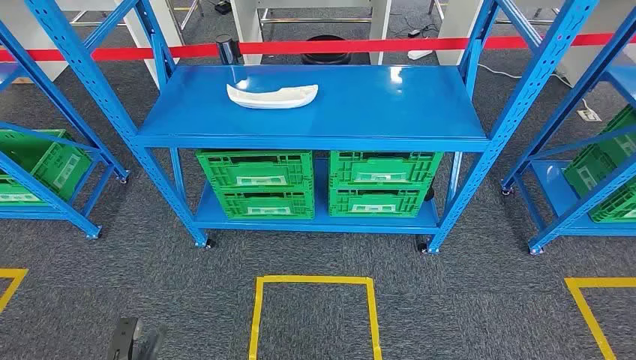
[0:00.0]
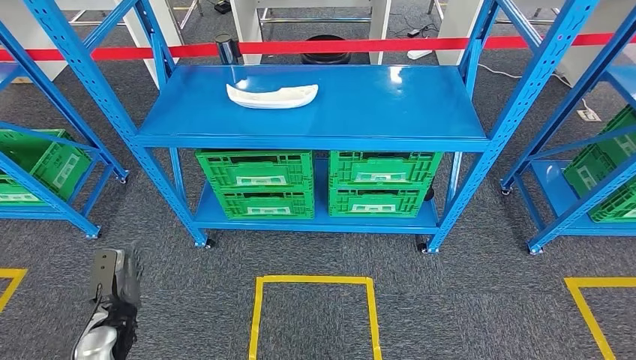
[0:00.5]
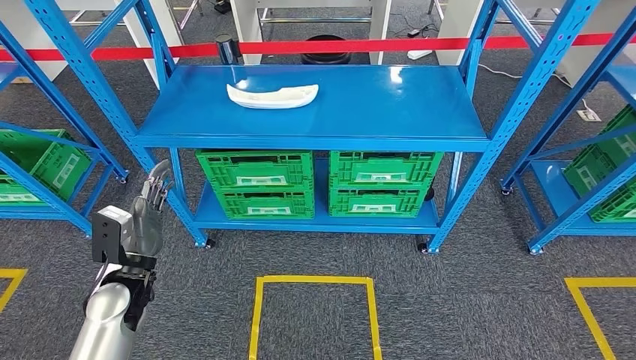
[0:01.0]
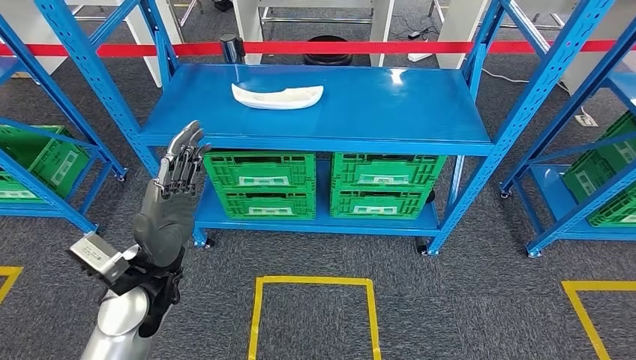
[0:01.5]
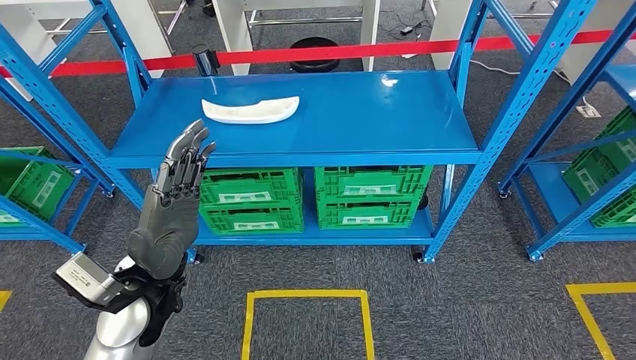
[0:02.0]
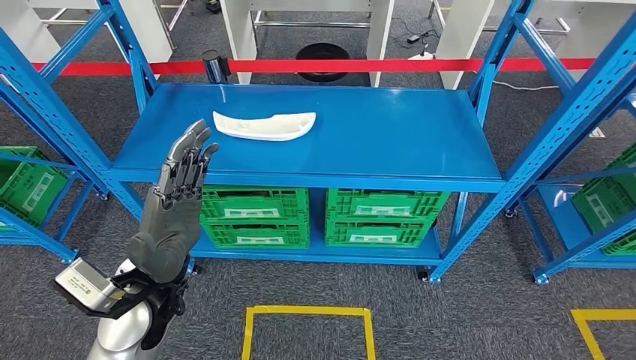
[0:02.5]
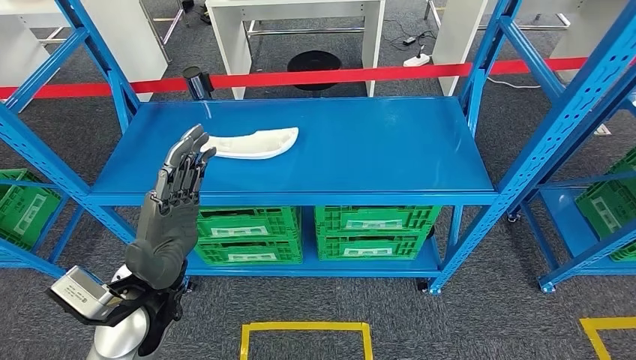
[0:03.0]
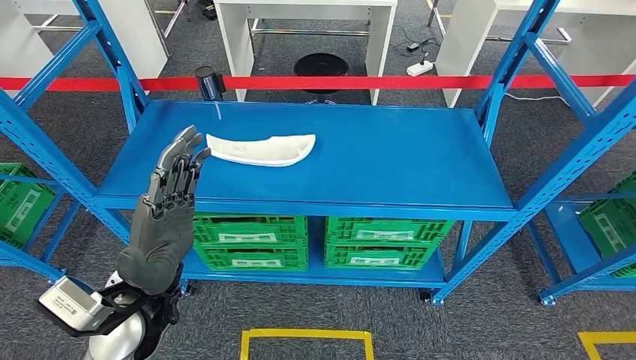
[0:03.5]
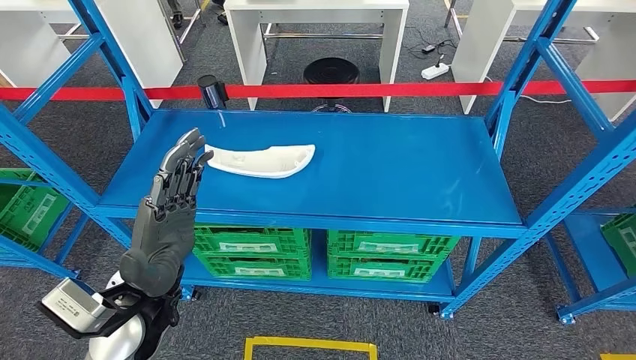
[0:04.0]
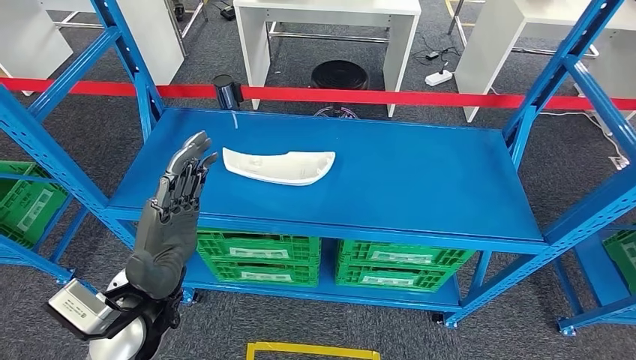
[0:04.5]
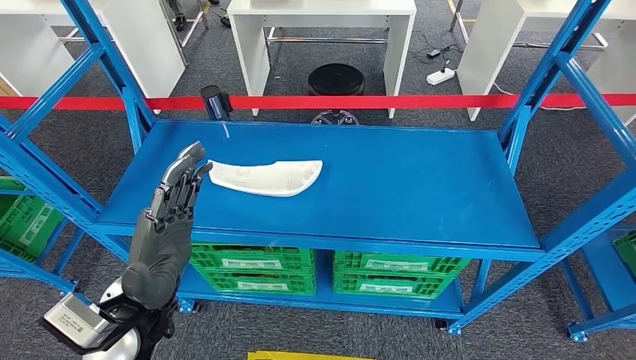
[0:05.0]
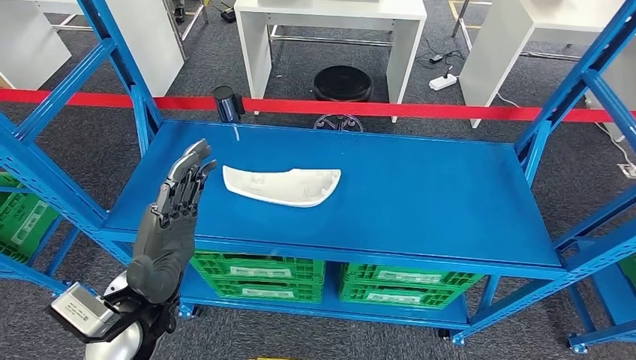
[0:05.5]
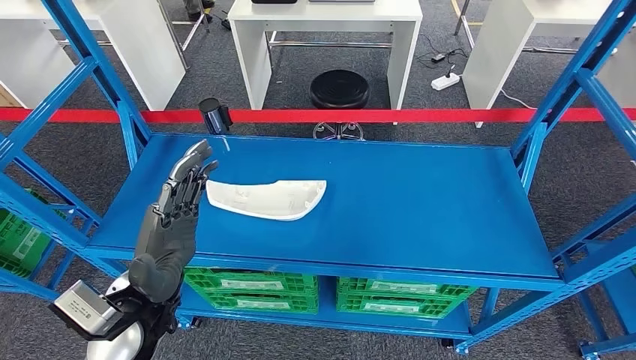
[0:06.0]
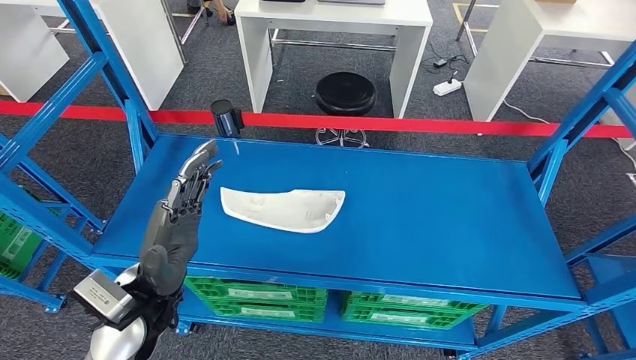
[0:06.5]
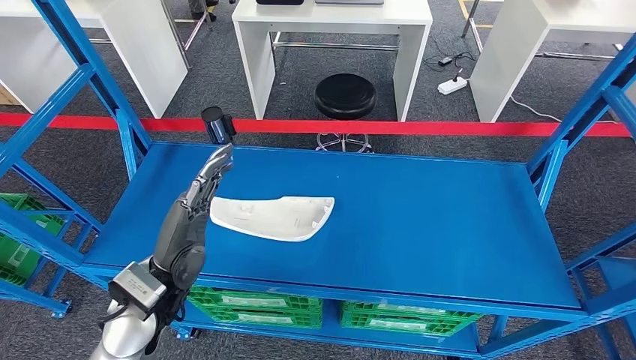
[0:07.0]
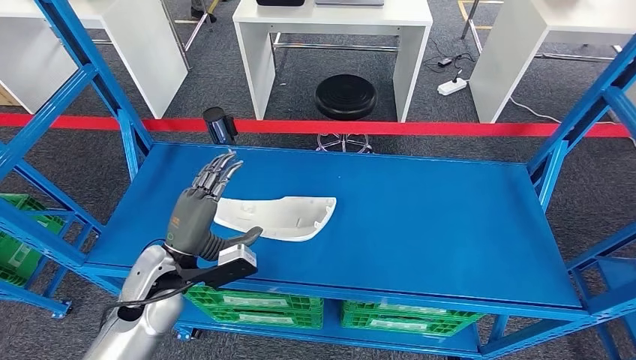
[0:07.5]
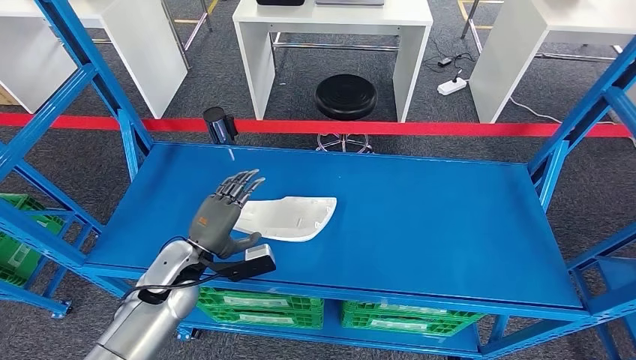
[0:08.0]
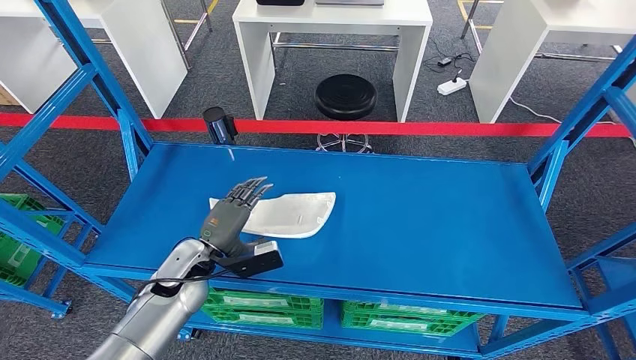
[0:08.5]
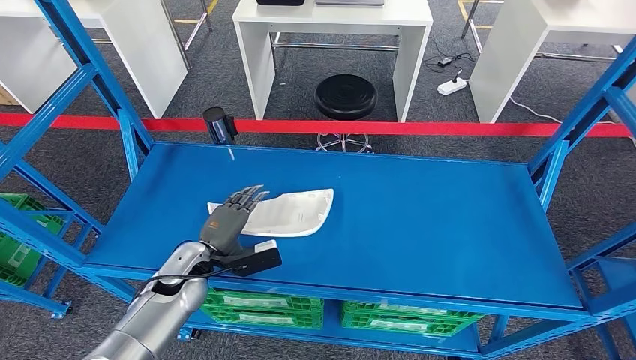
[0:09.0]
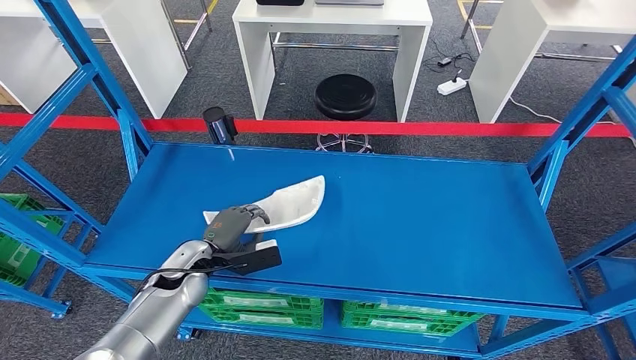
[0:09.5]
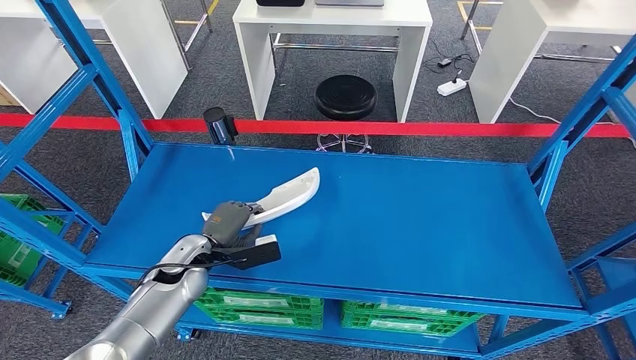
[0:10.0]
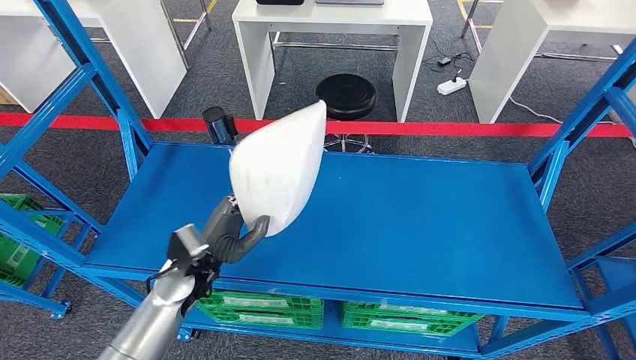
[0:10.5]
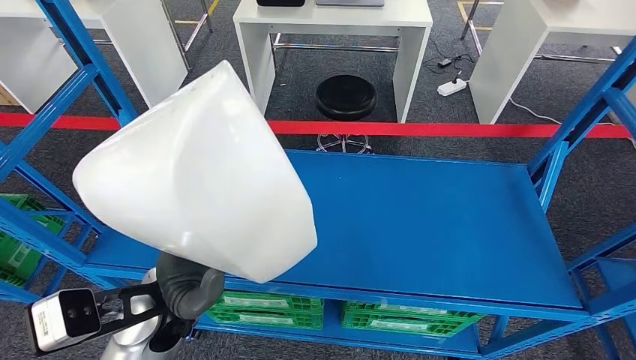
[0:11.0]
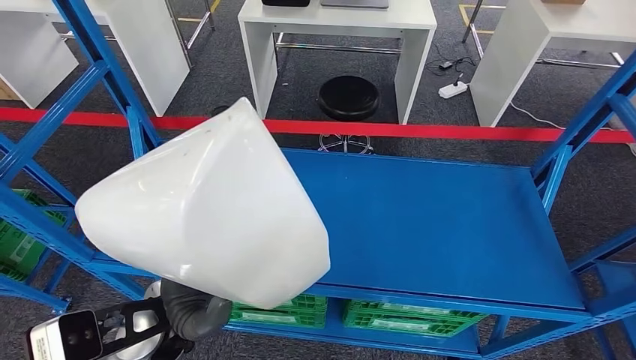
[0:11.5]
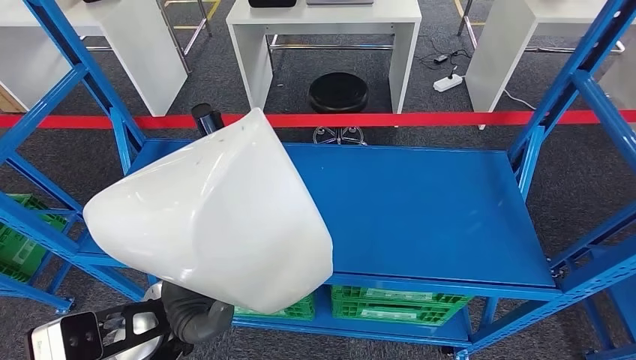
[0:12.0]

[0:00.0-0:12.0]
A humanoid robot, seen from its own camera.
Step, 0:00.0 to 0:11.0: Pick up the small component from the shelf.
0:08.0 to 0:10.0: The hands stay close to where they were, moving slightly.

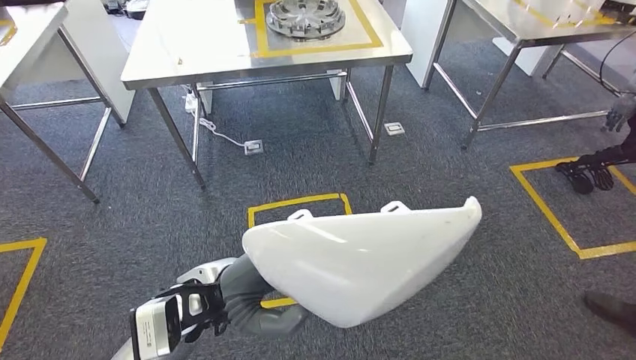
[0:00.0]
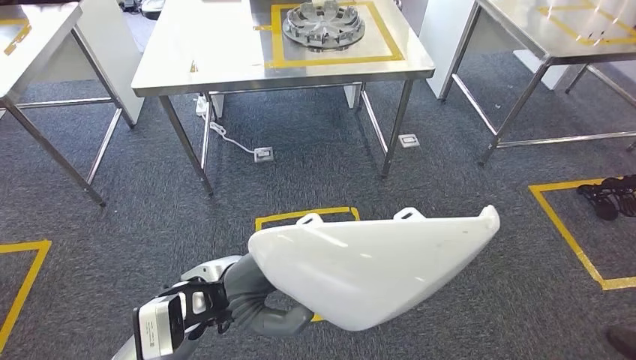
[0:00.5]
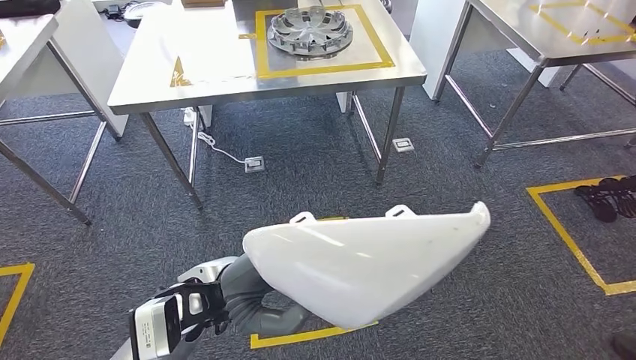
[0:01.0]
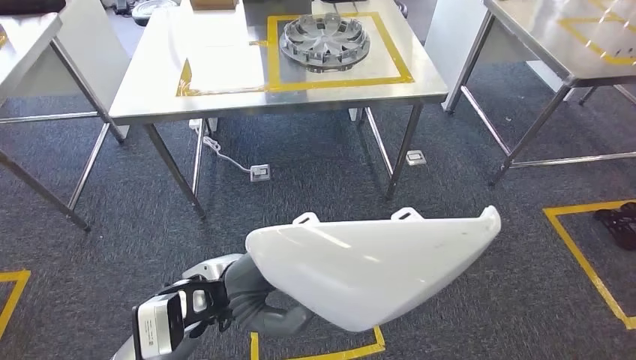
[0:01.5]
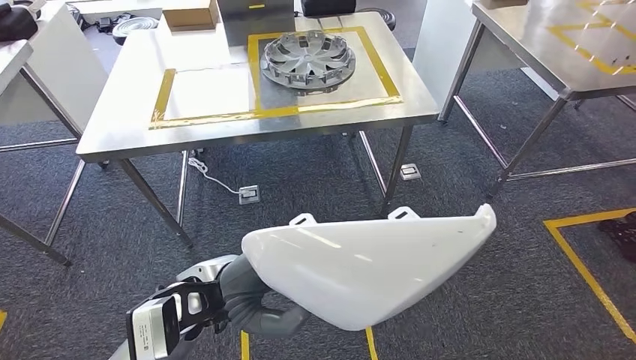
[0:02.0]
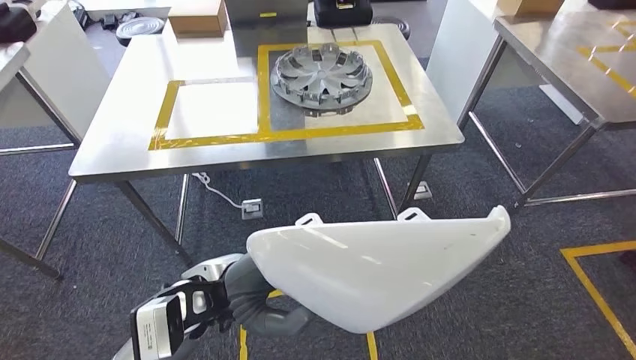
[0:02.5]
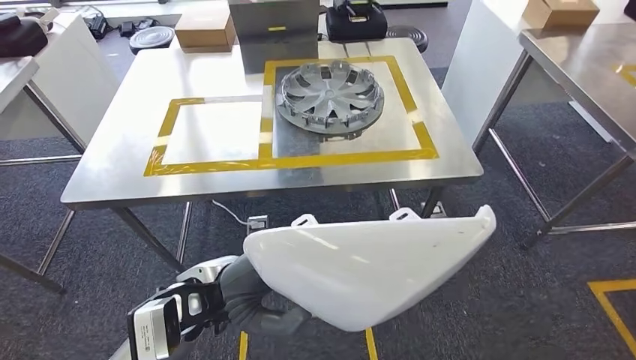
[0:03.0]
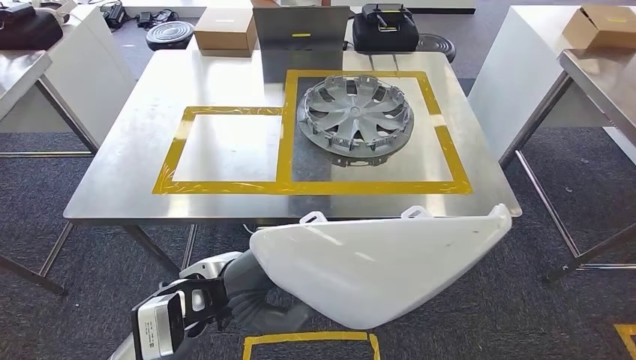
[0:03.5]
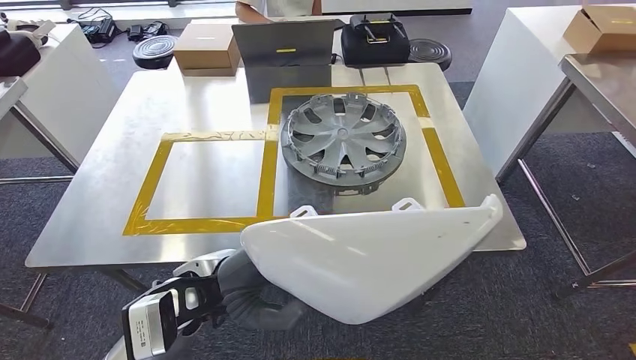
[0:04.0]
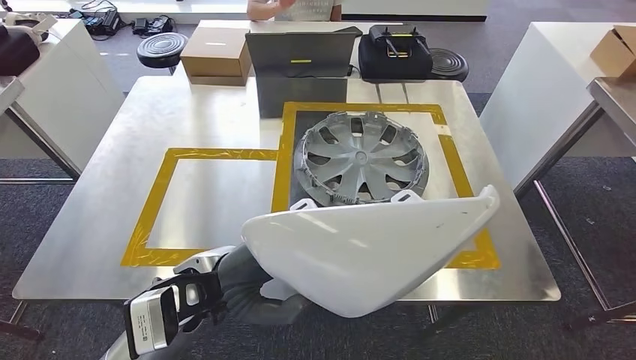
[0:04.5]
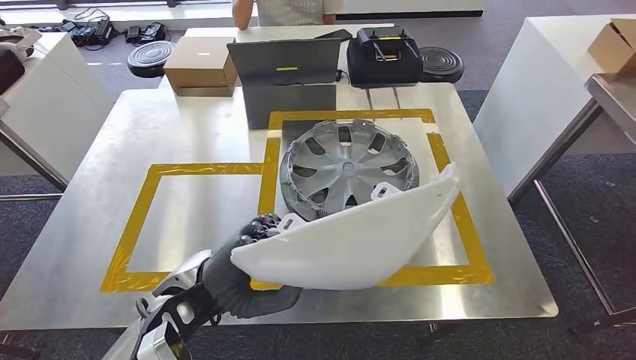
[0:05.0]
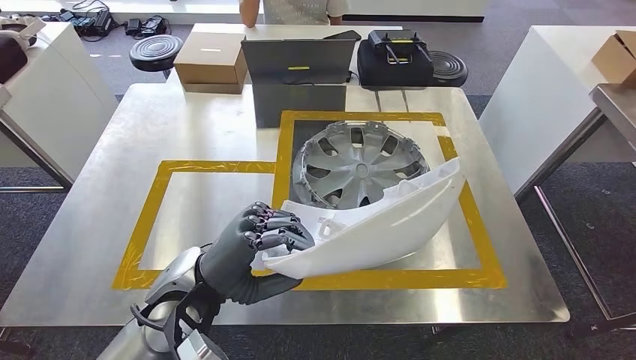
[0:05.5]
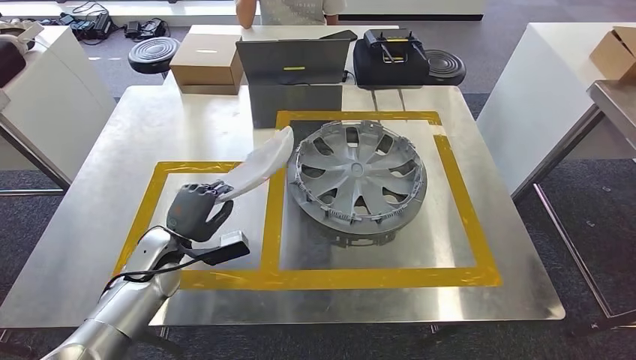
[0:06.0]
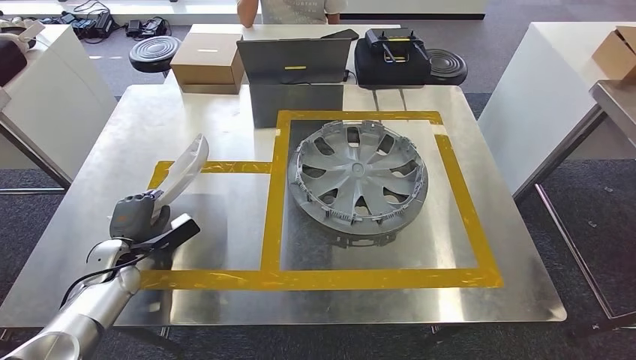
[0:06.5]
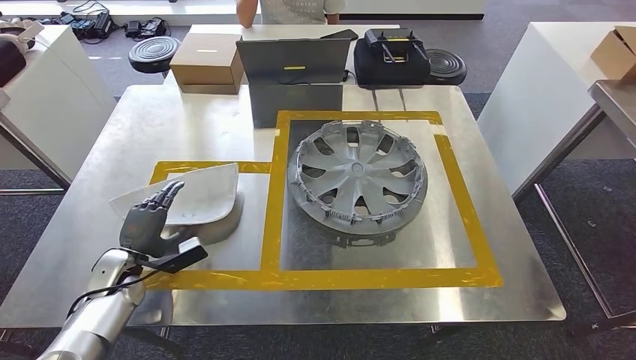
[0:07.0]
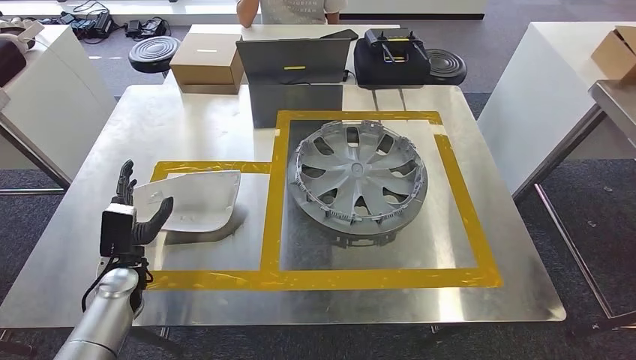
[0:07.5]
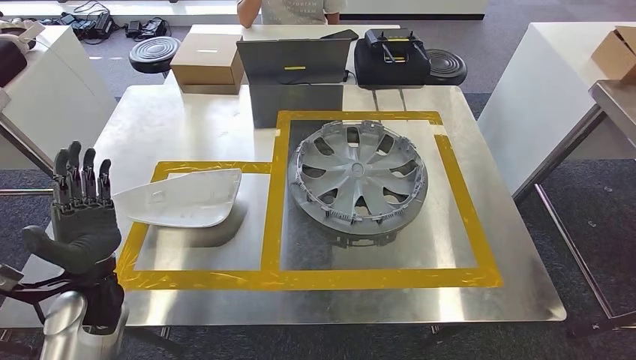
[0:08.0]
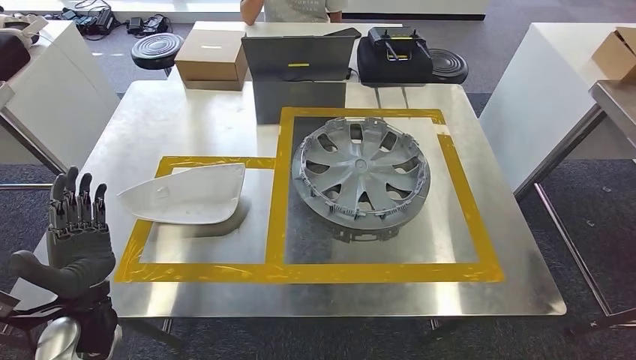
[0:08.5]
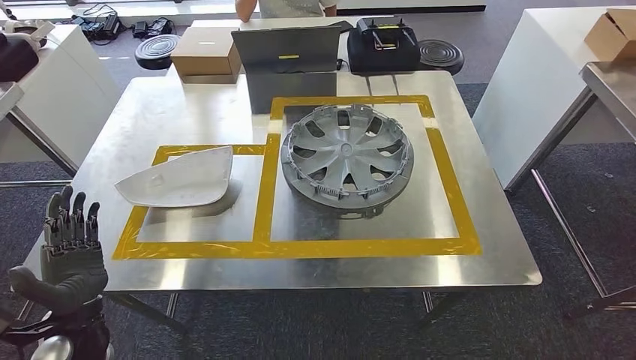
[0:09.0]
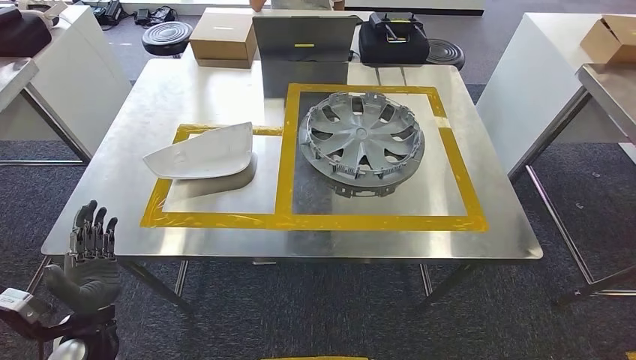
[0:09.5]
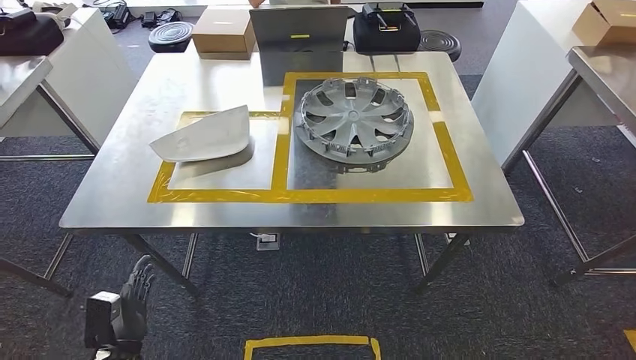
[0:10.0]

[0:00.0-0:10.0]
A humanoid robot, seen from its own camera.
Step, 0:00.0 to 0:04.0: Move the small component to the workbench.
Step, 0:04.5 to 0:08.5: Insert the small component into the corresponding slot on the workbench.
0:06.0 to 0:08.0: The left hand goes approximately 10 cm backward and to the left.
